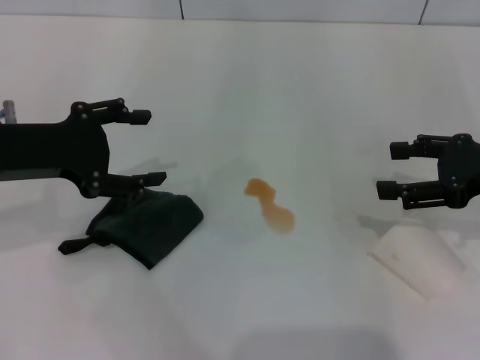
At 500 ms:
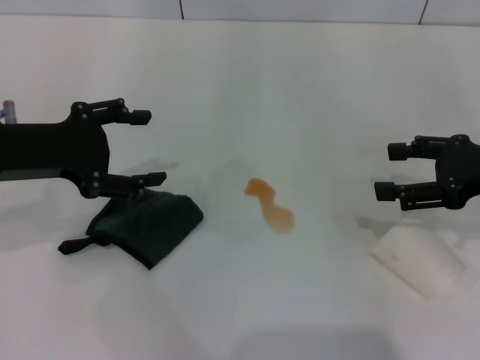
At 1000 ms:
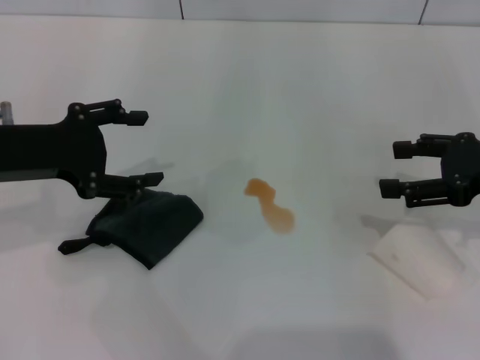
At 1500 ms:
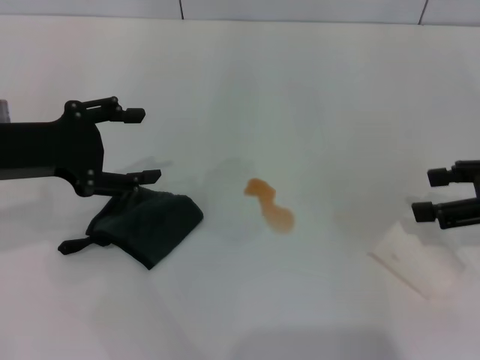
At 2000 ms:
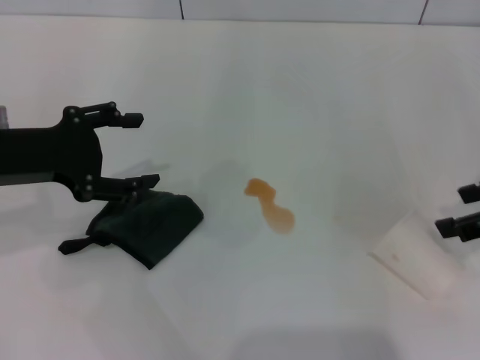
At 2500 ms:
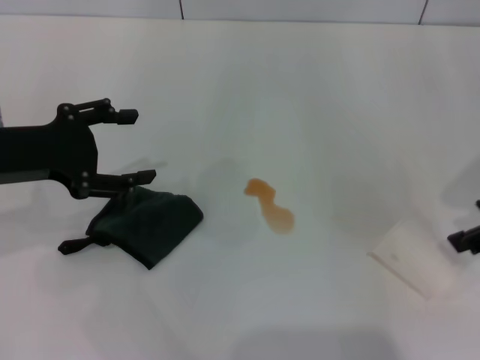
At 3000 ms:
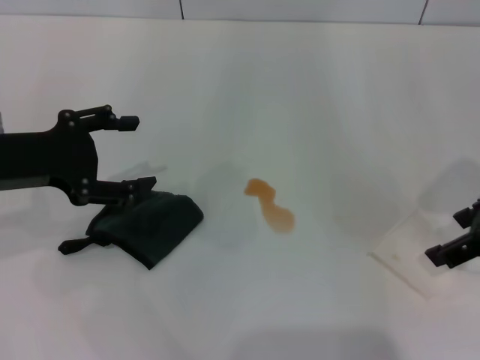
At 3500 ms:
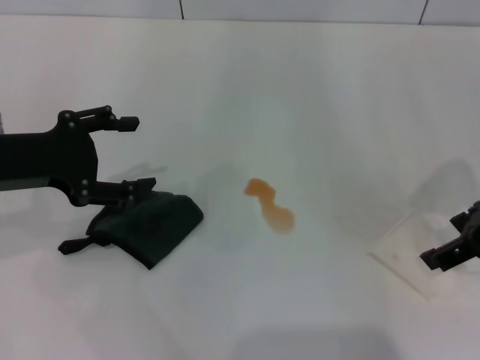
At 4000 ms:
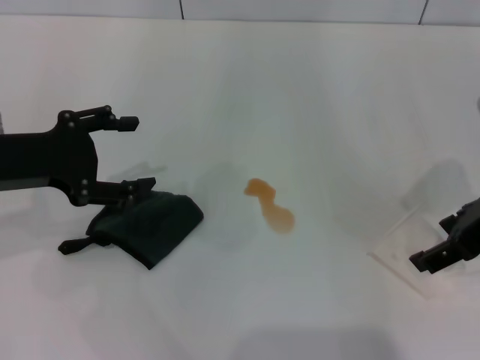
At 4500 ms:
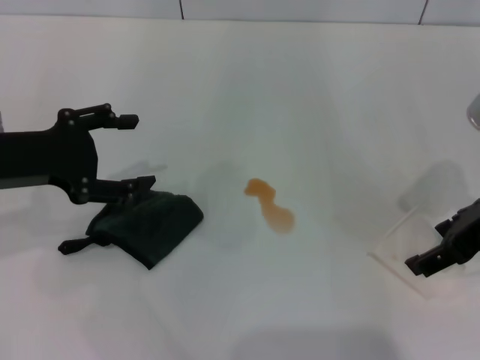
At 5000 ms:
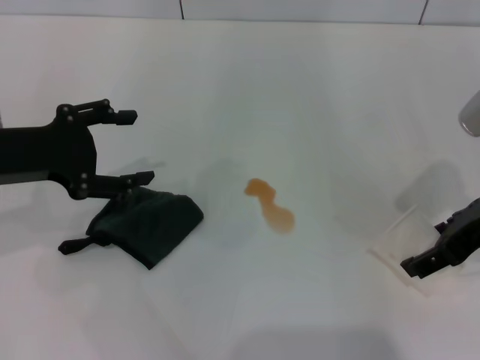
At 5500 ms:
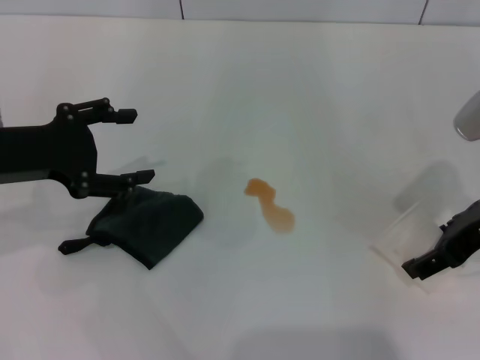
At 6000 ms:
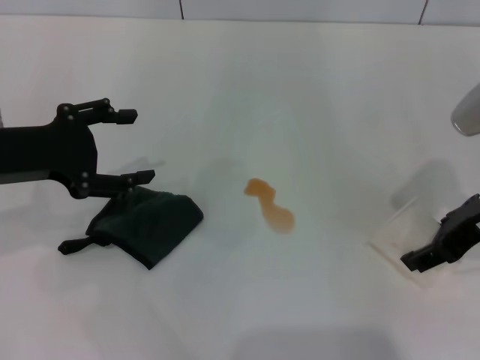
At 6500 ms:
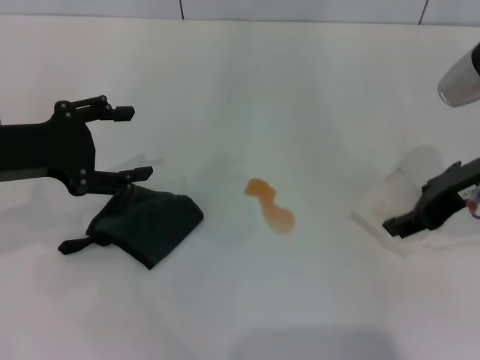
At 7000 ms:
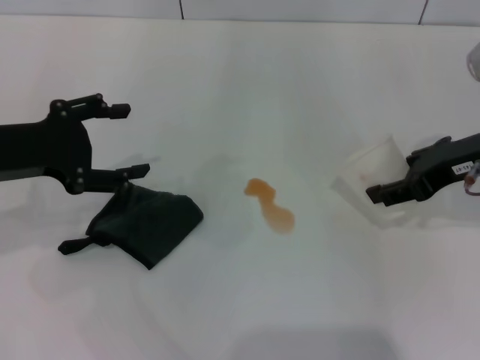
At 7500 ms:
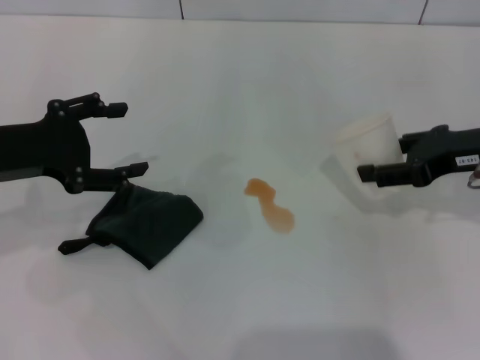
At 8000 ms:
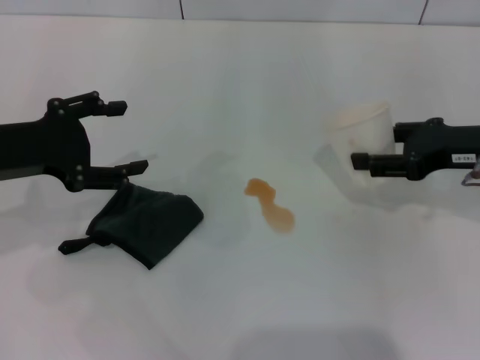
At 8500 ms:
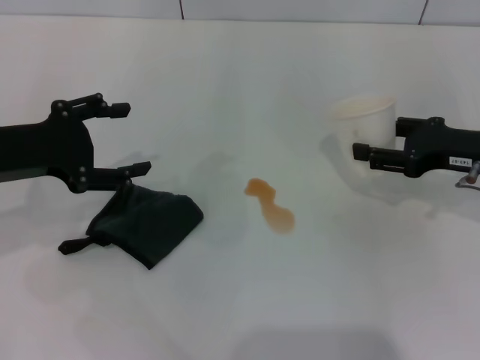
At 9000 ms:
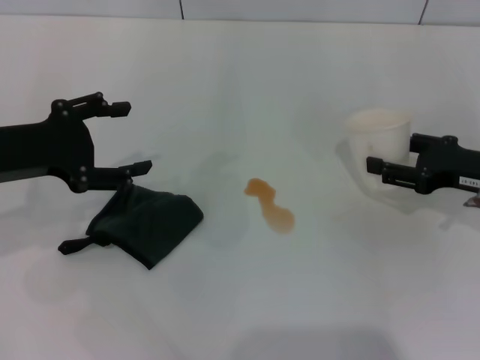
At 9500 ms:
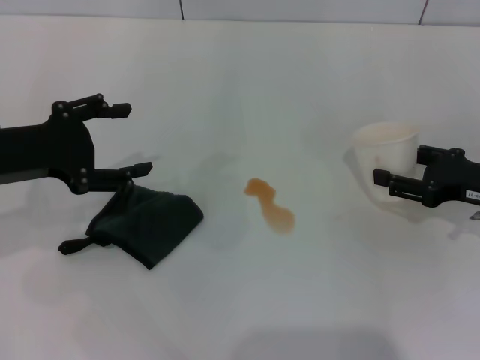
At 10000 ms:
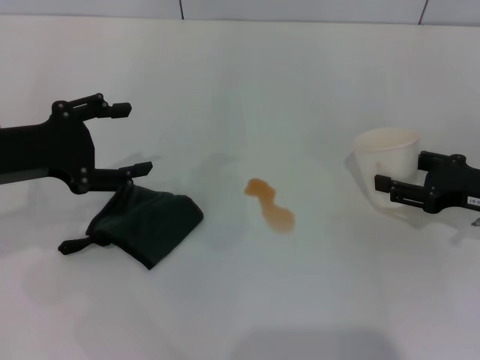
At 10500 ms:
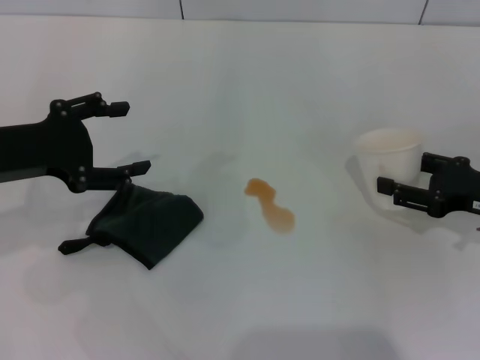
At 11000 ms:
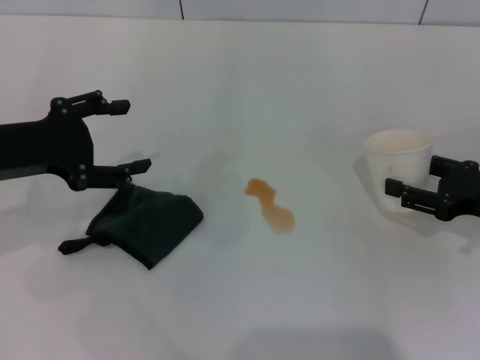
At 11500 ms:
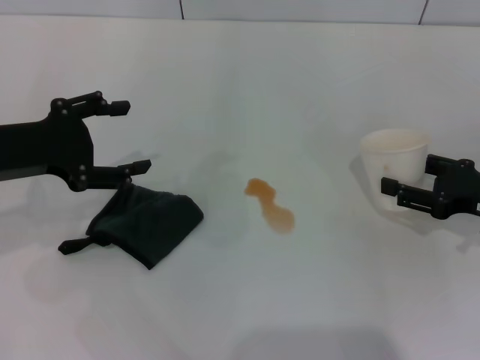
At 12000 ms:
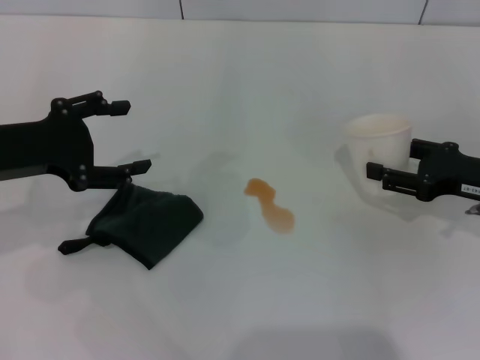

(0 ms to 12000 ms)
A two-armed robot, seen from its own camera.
Step, 0 ms - 5500 ms: Grasp the paper cup with the right gripper.
0 ms - 2000 ms: The right gripper moves roughly 5 cm.
2000 ms - 4000 ms: The right gripper shifts roughly 5 cm to the left.
4000 ms - 6000 ms: The right gripper closes up.
6000 ms - 8000 ms: The right gripper ends up some 5 cm from where it was.
8000 ms - 10000 ms: The right gripper goes roughly 5 cm downward.
10000 ms - 12000 ms: The grippers move only a little.

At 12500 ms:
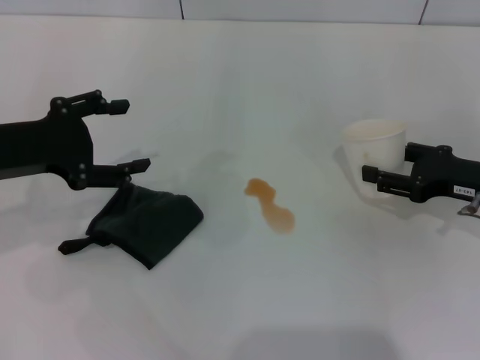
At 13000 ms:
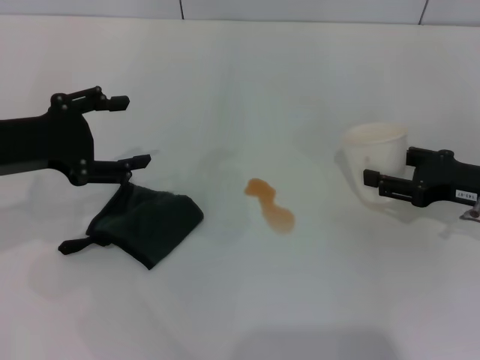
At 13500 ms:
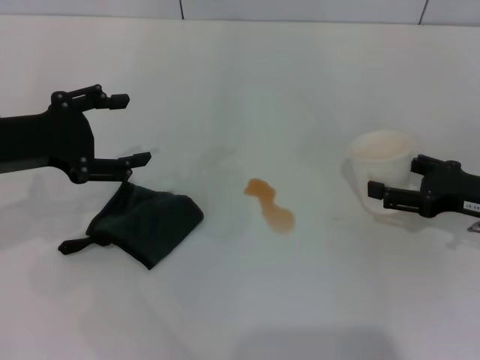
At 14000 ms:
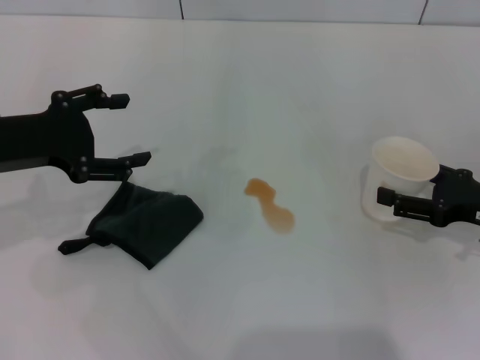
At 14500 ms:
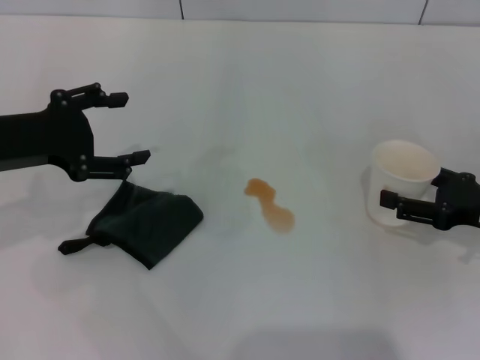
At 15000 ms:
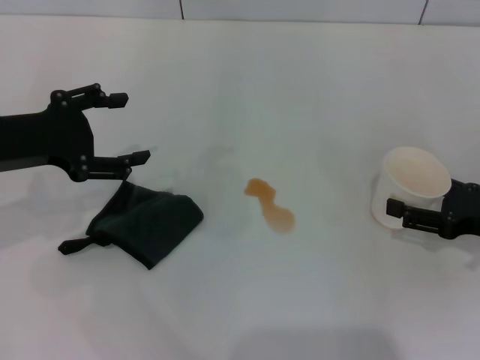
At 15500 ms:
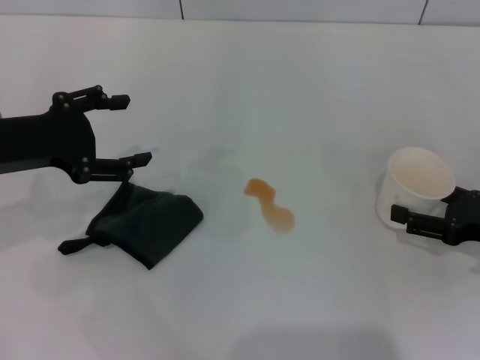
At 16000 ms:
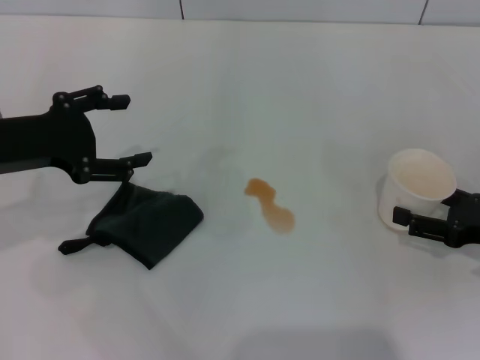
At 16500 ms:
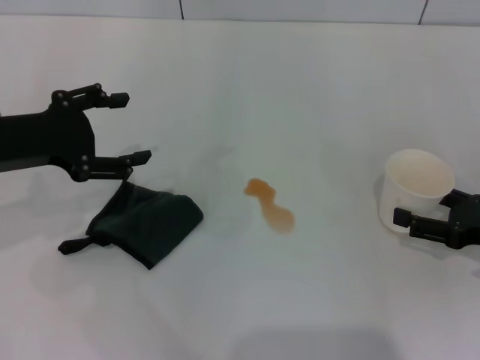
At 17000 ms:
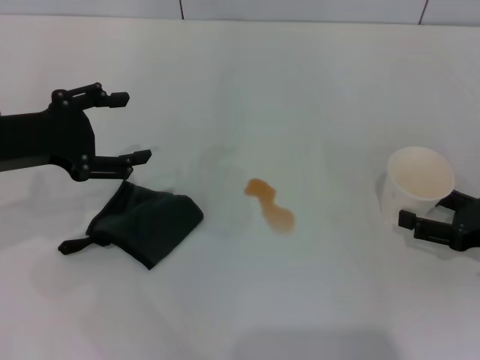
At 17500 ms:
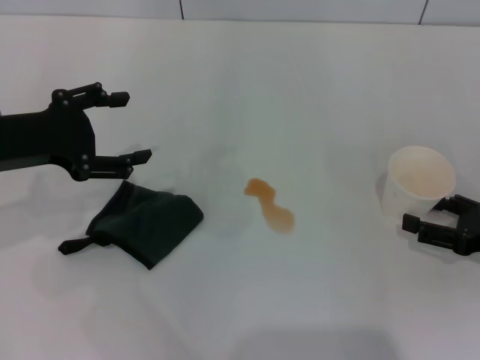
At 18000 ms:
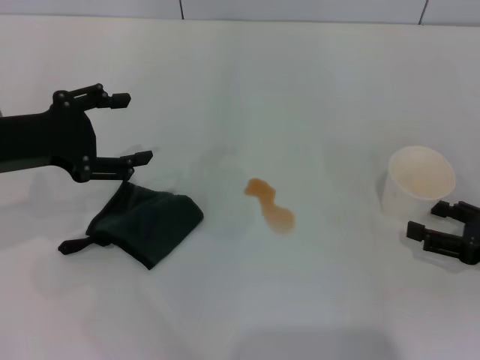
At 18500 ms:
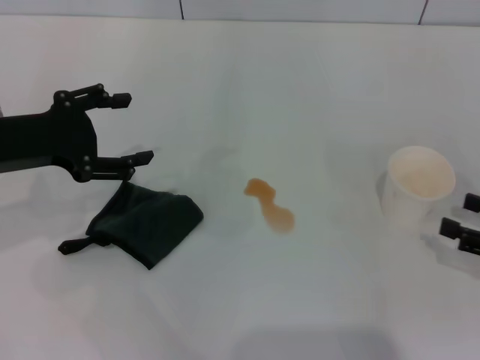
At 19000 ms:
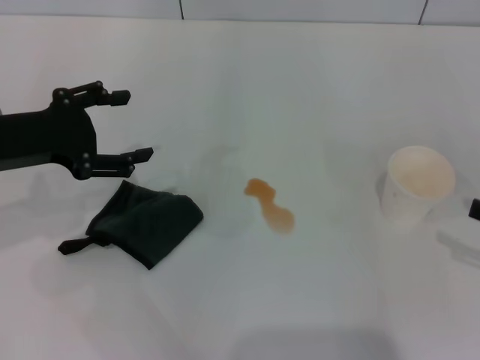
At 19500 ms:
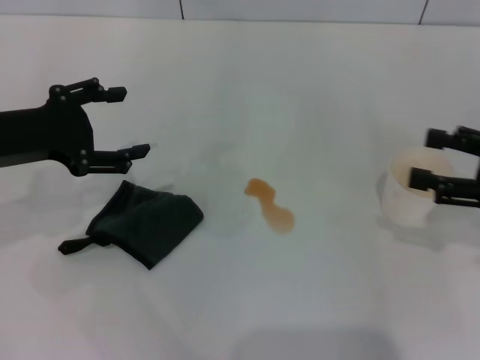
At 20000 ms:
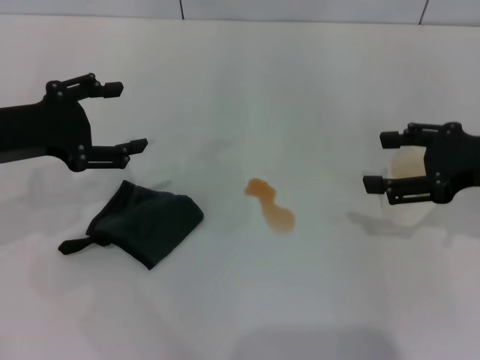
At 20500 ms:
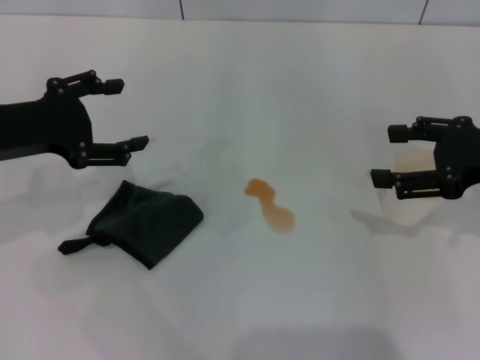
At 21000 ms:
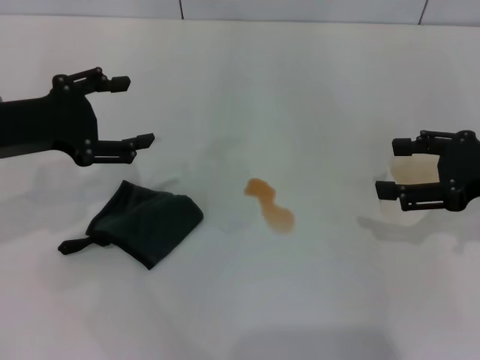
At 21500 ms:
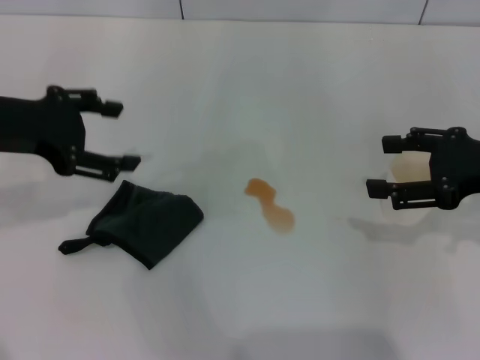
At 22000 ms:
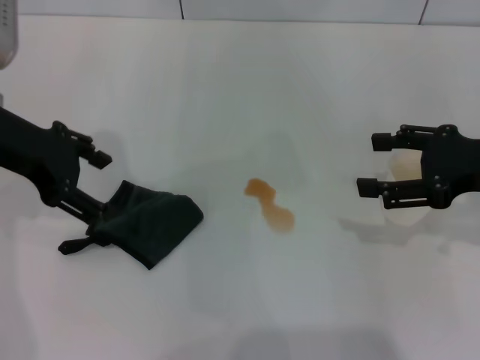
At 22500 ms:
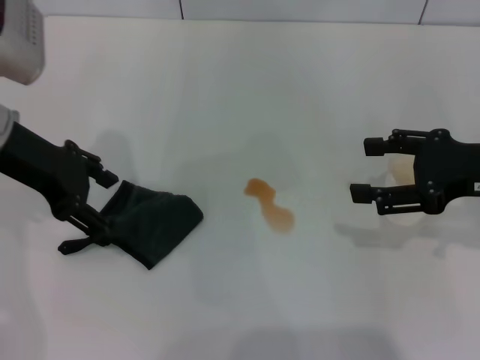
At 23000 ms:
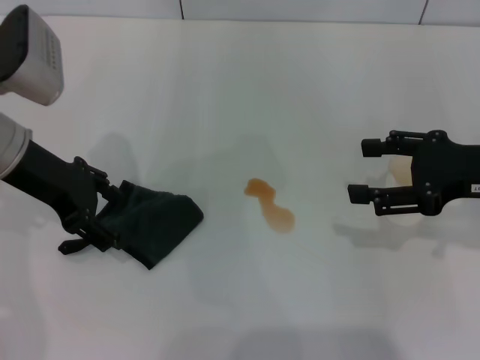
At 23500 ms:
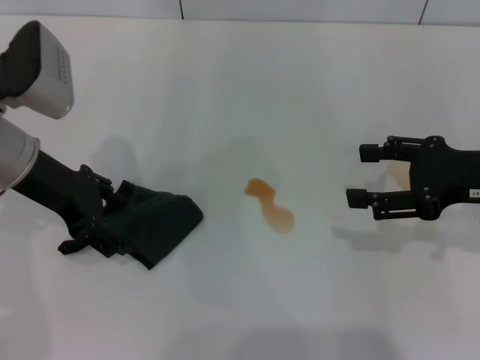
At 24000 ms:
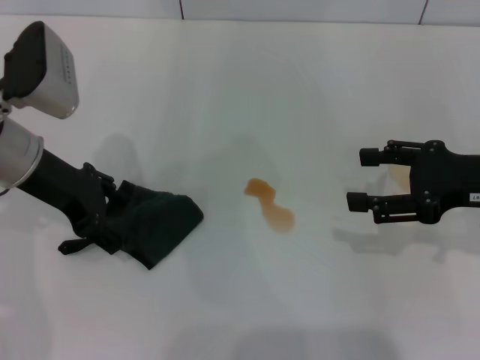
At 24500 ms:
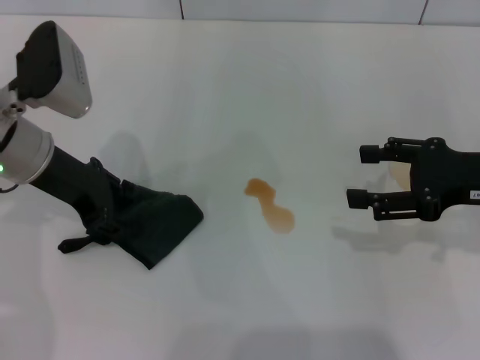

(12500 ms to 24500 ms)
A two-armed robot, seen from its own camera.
Step, 12500 ms - 18000 ms: Stand the paper cup upright with the right gripper.
12500 ms - 14500 ms: The right gripper opens up.
14500 ms - 16500 ms: There are only small adjustments of the grippers.
16500 ms - 18500 ms: The right gripper ends up some 5 cm from where it was.
18500 ms - 20500 ms: The right gripper goes roughly 15 cm upward, forward and to the left.
20500 ms - 22500 ms: The left gripper shifts by roughly 5 cm.
22500 ms - 24500 ms: The left gripper changes place by approximately 5 cm.

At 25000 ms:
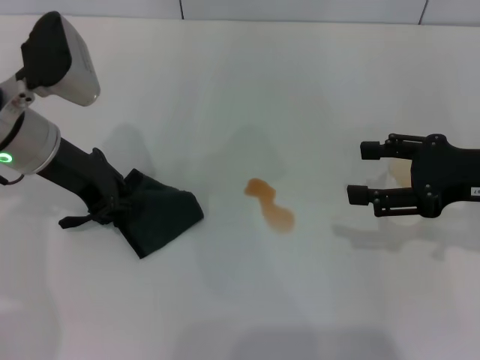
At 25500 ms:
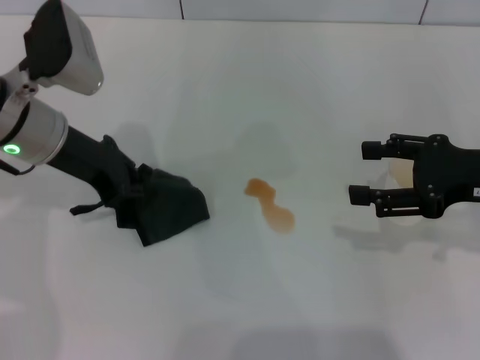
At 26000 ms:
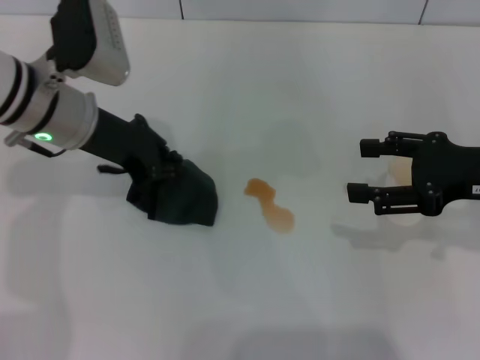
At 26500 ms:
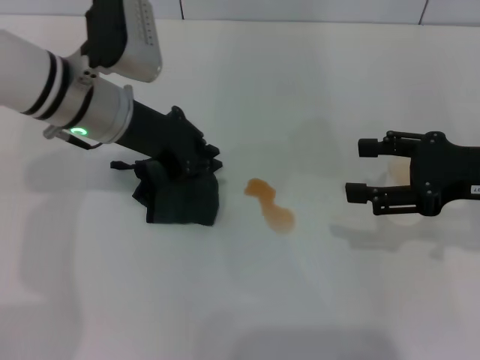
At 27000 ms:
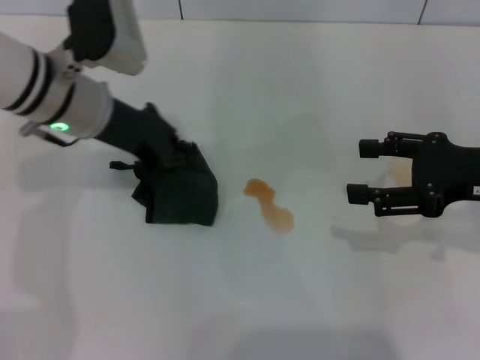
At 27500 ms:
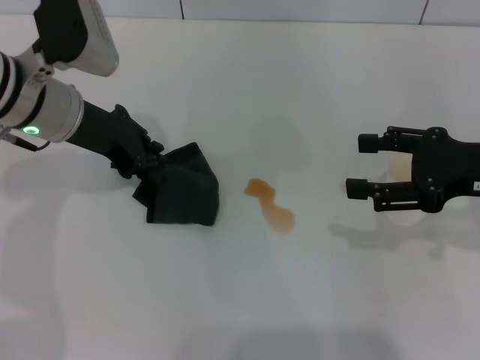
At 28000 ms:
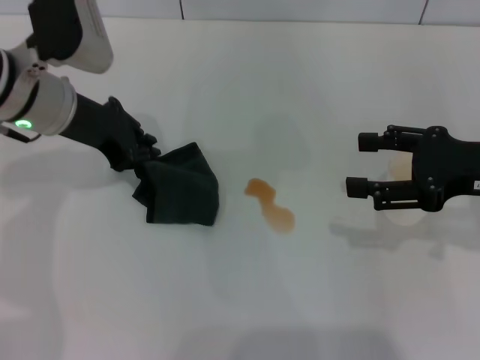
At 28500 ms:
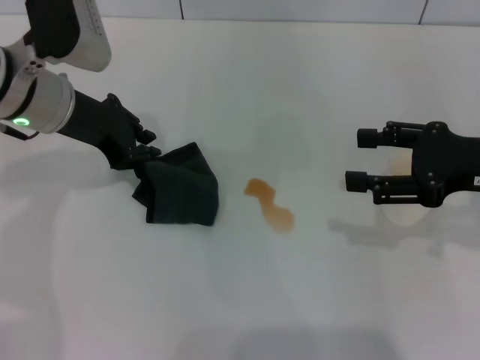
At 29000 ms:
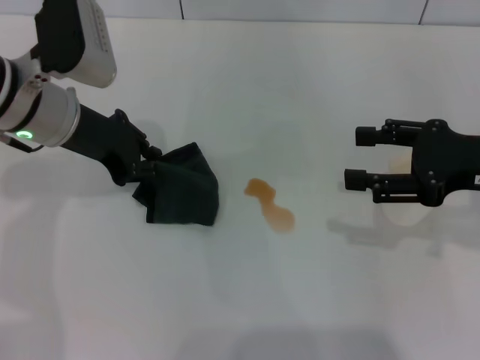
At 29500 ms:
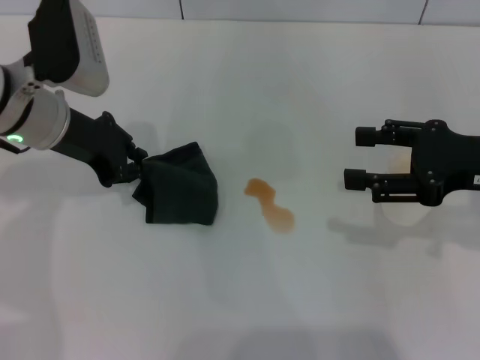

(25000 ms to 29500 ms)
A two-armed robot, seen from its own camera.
25000 ms - 27000 ms: The left gripper moves some 5 cm.
27000 ms - 29500 ms: The grippers make only small movements.
